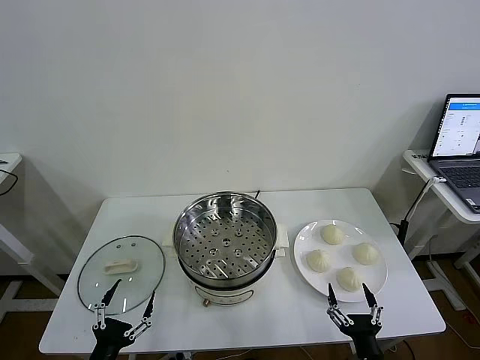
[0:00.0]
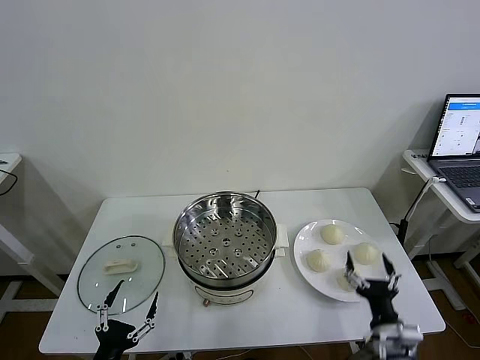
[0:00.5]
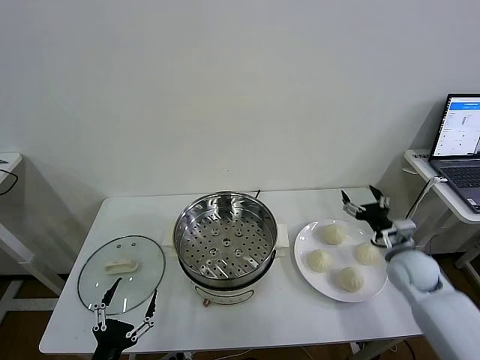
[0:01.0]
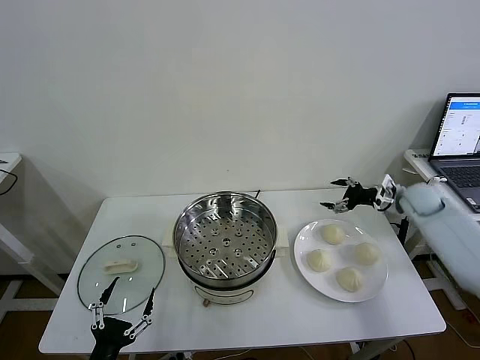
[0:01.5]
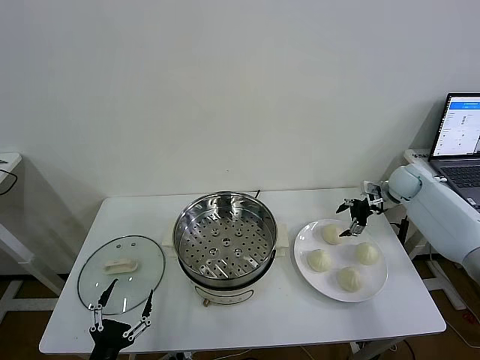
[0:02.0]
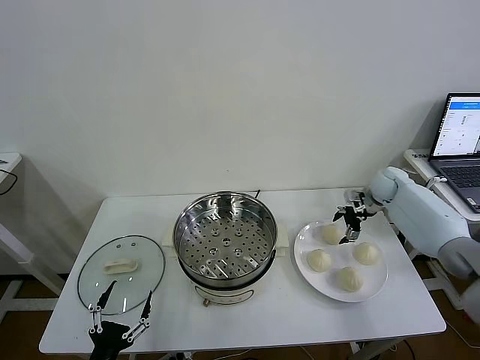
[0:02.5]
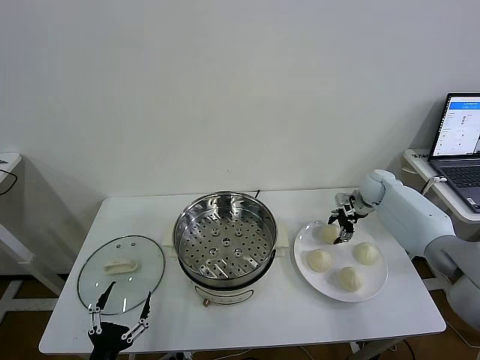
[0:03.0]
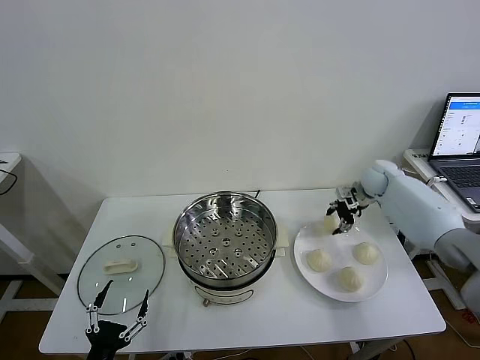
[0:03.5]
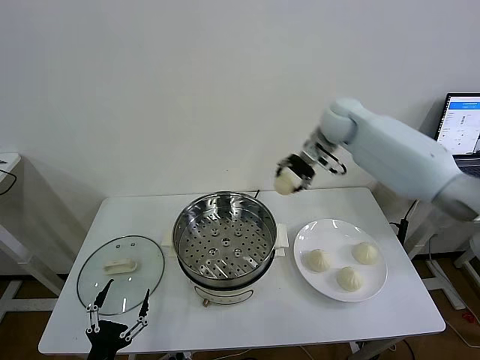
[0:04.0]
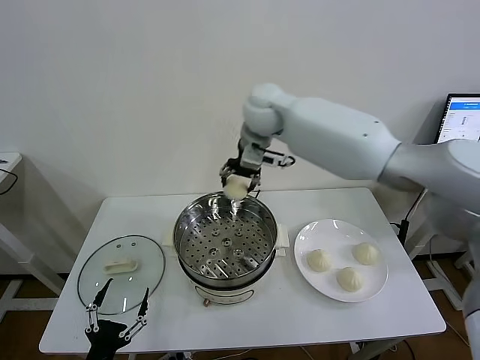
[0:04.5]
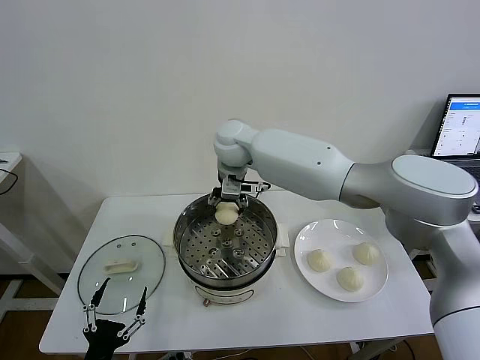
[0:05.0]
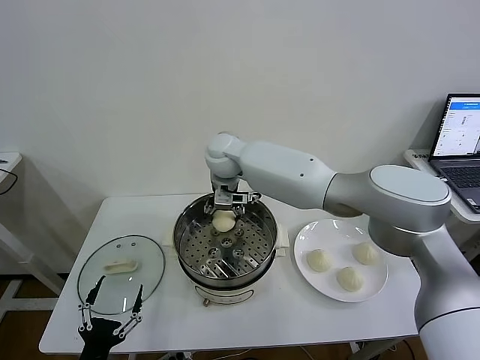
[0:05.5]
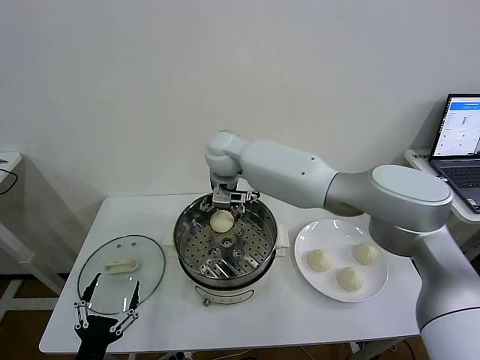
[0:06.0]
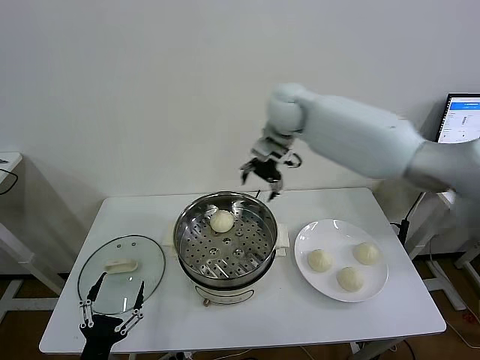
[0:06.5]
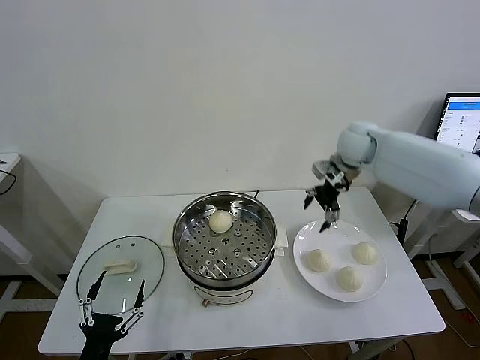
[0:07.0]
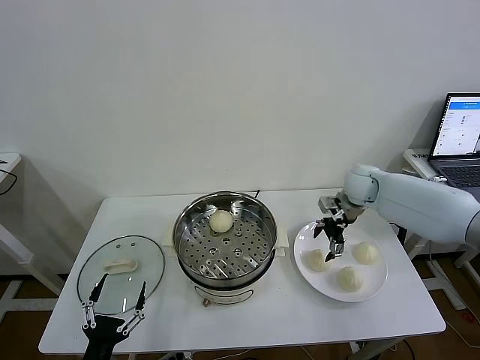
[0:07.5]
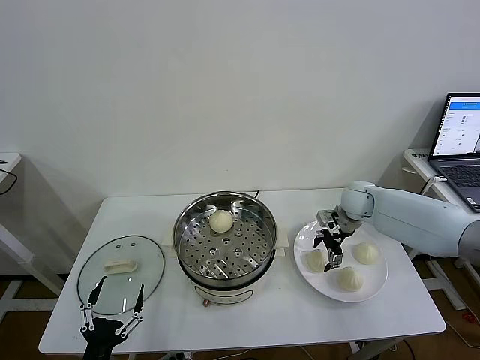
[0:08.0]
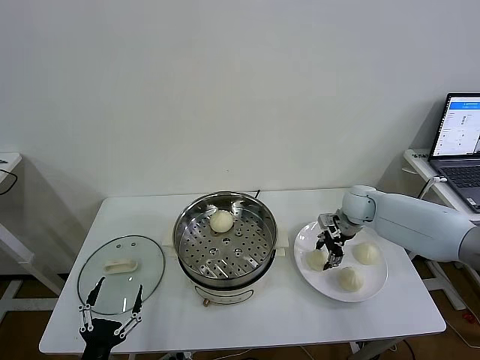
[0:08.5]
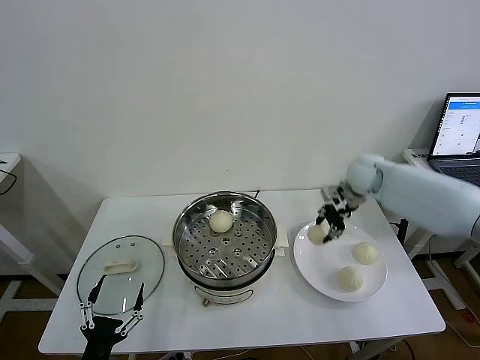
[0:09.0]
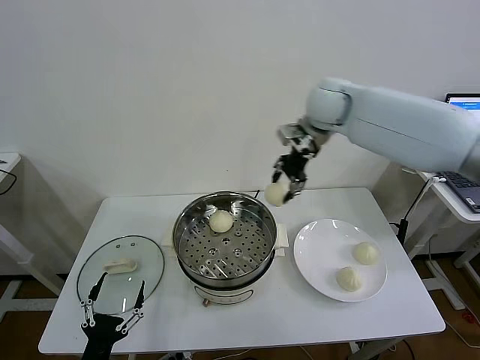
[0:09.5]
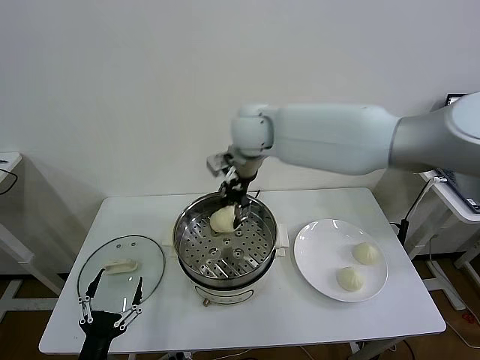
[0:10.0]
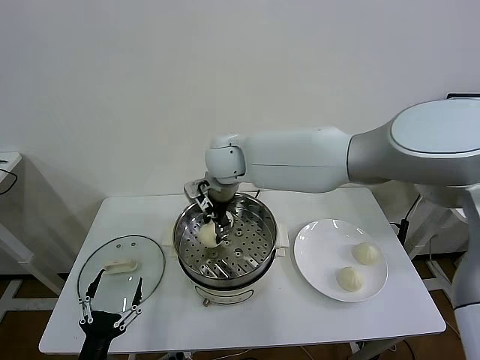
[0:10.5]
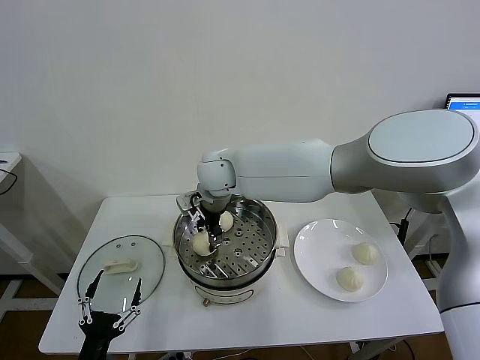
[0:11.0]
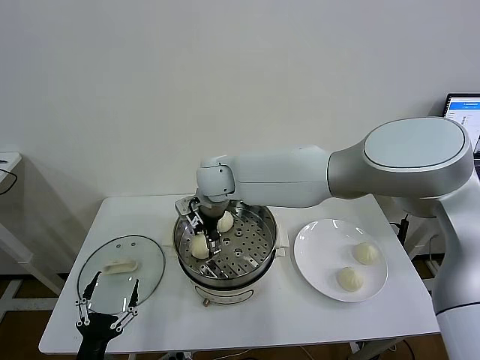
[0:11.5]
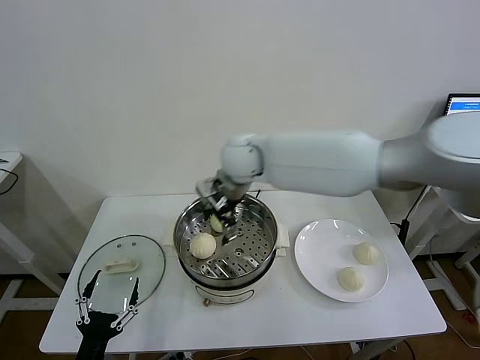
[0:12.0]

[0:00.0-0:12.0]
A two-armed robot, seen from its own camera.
Task of the whole recording: take steamed baozi put them in steamer then cover it.
Step, 0:00.0 to 0:03.0: Grasp the baozi in the plate with right gripper.
Step, 0:03.5 to 0:05.5: Place the baozi on the steamer with right gripper.
Step, 0:06.0 to 0:08.5: Grasp the baozi in the plate with right gripper.
Step, 0:09.0 to 0:11.5: Place the baozi on the steamer with right gripper.
0:02.0 to 0:04.0: The right gripper goes approximately 30 cm to the left and upward, and closes.
0:04.0 to 0:06.0: The right gripper shifts some 20 cm to the left, and opens up.
0:06.0 to 0:08.0: The right gripper shifts roughly 35 cm to the right and downward.
0:08.0 to 0:10.0: The right gripper moves to the left and upward, roughly 35 cm, and closes up.
0:10.0 to 0:12.0: The right gripper moves some 10 cm downward and comes back, and opens its fingers.

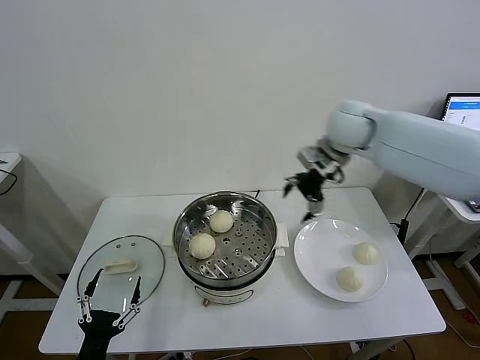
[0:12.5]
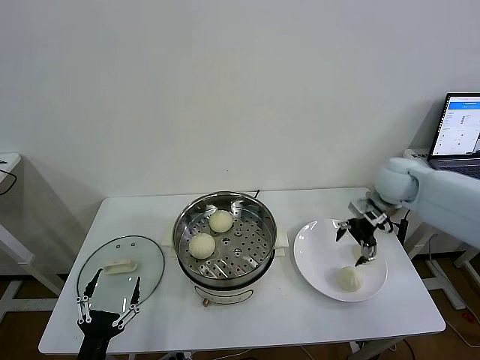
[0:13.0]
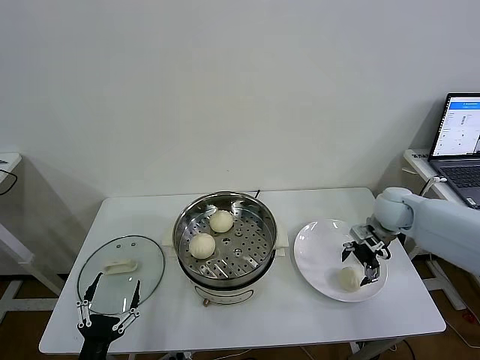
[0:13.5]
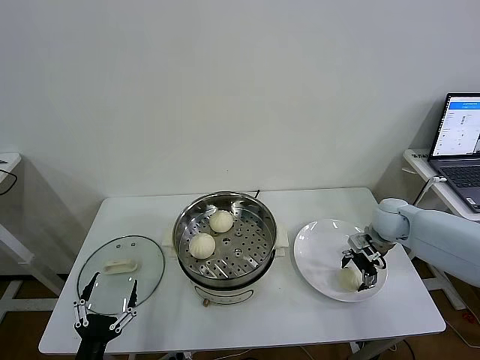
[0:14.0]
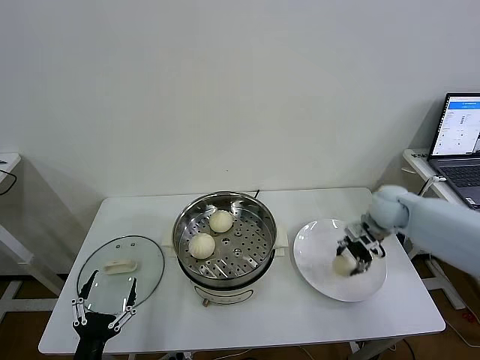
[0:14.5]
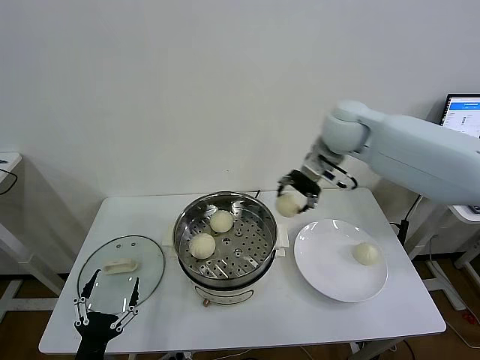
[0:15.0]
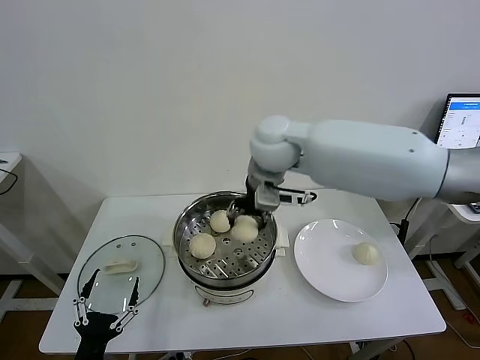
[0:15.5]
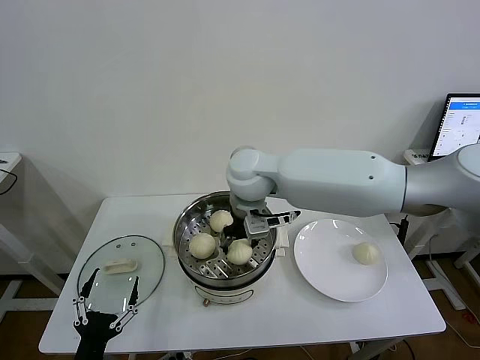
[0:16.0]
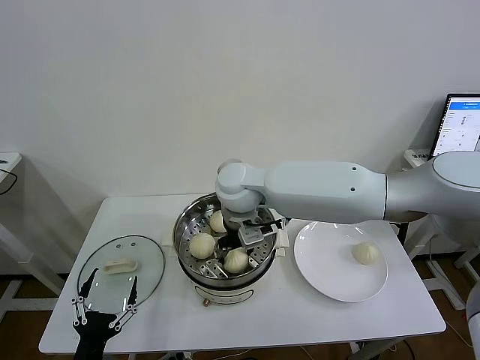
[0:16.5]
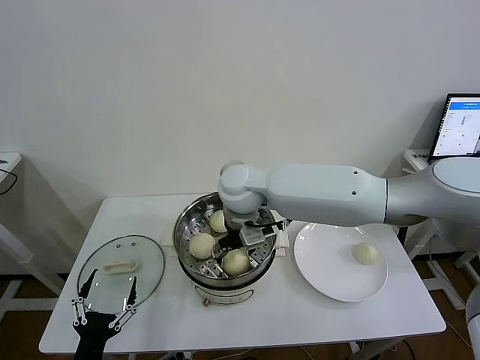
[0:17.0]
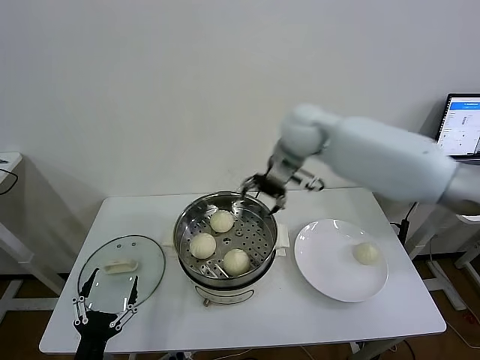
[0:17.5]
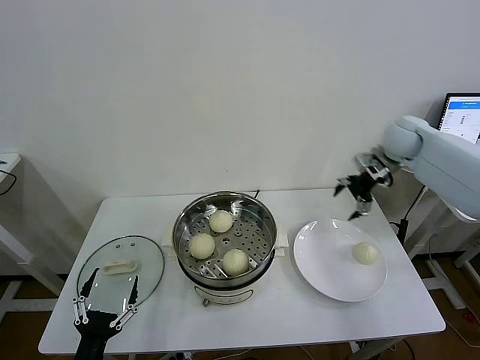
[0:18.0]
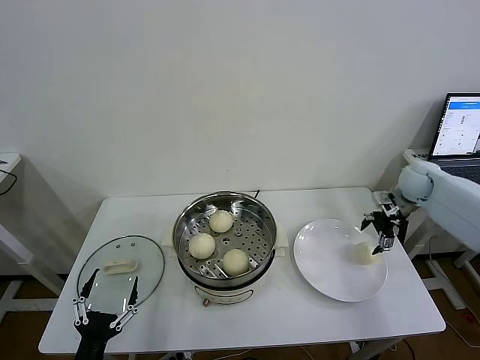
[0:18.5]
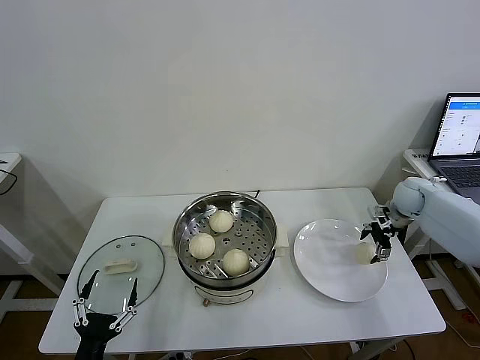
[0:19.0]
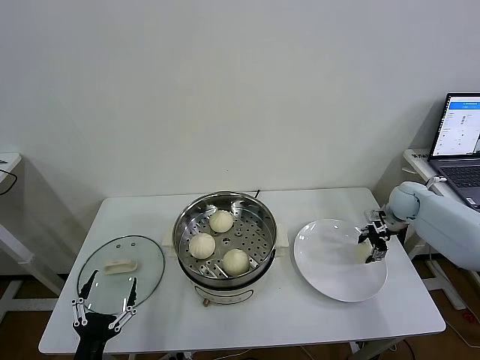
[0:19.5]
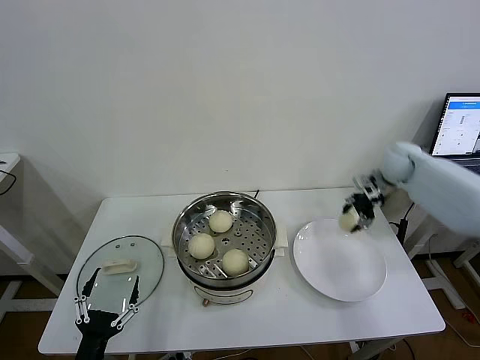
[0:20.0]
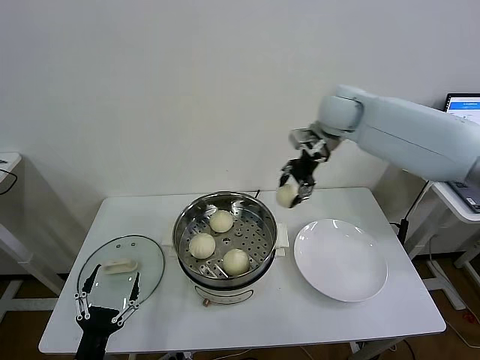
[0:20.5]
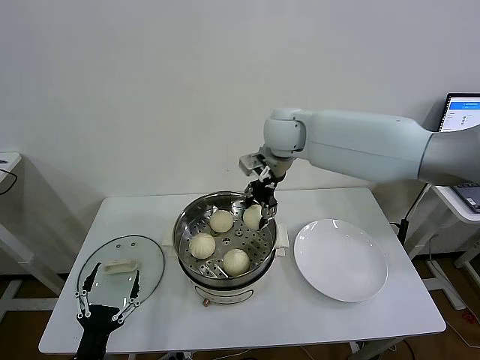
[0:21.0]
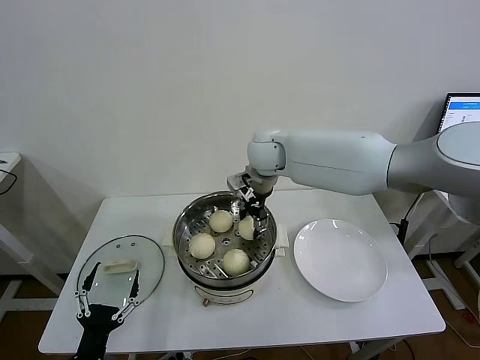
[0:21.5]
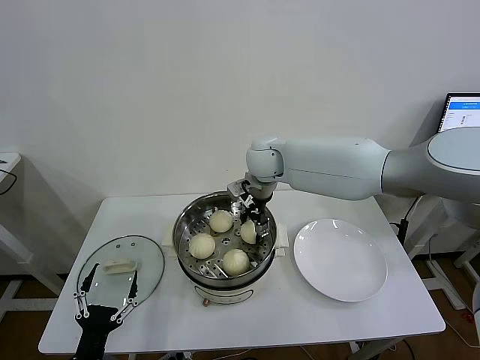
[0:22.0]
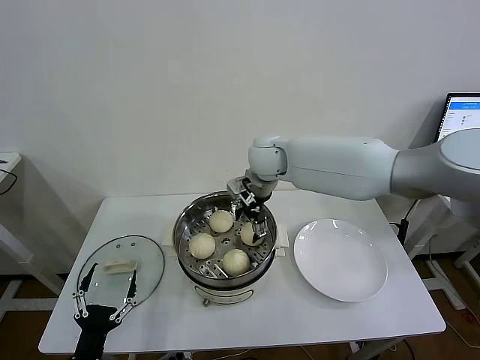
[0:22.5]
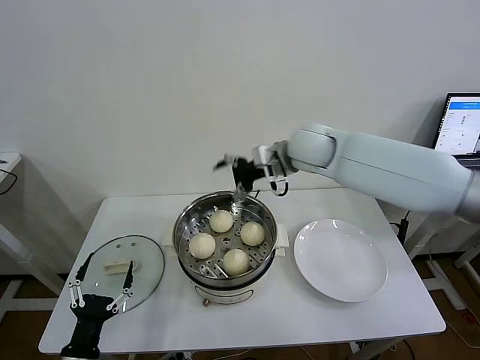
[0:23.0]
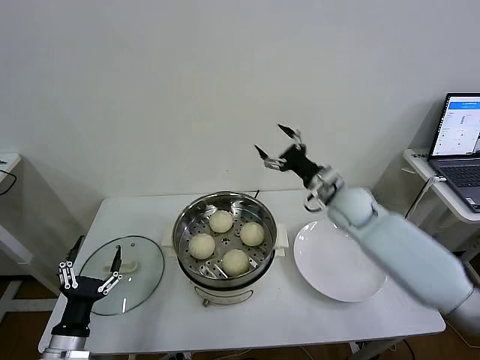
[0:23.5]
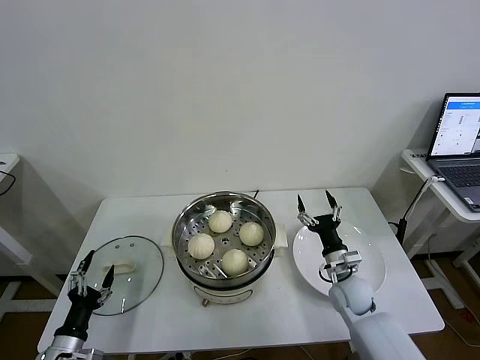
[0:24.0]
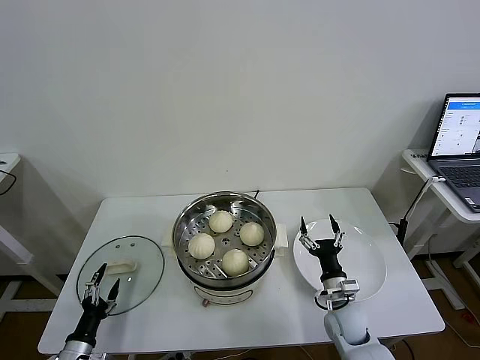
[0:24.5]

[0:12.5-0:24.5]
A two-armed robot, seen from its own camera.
Task of the whole recording: take steamed baozi put them in steamer then cover it.
Step, 0:12.5 to 0:14.0: Grasp the baozi in the plate with right gripper.
Step, 0:14.5 to 0:17.0: Place the baozi on the steamer with right gripper.
Step, 0:17.5 to 0:19.5: Grasp the baozi in the plate with right gripper.
Step, 0:20.0 to 0:22.0: Place the baozi on the steamer with right gripper.
0:12.5 to 0:14.5: The right gripper goes about 20 cm downward and to the right, and closes.
0:14.5 to 0:16.5: The right gripper heads to the left, covering about 35 cm.
0:16.5 to 0:18.5: The right gripper moves to the right, approximately 50 cm, and opens.
0:18.5 to 0:20.5: The right gripper shifts some 30 cm to the left and upward, and closes.
0:20.5 to 0:22.5: The right gripper travels to the left and downward by roughly 15 cm, and opens.
0:22.5 to 0:24.5: The right gripper moves downward, backward and to the right, about 50 cm. Meanwhile the left gripper is displaced to the left, downward and forward by roughly 15 cm.

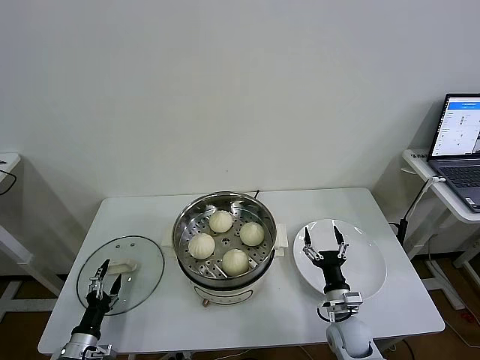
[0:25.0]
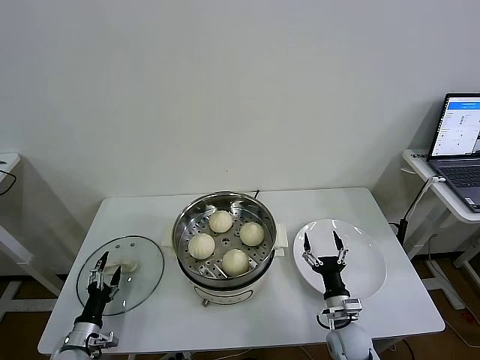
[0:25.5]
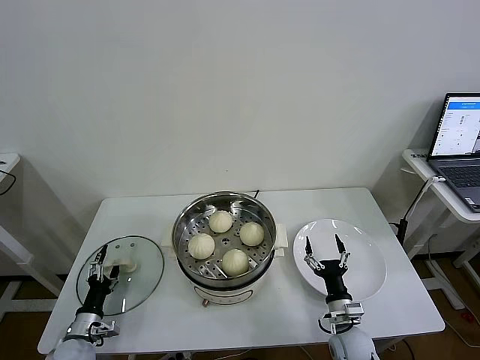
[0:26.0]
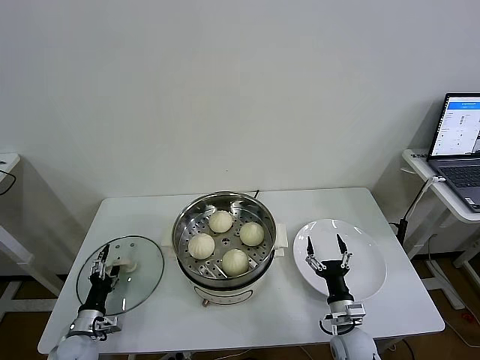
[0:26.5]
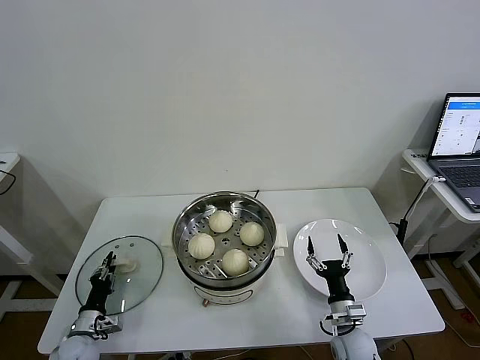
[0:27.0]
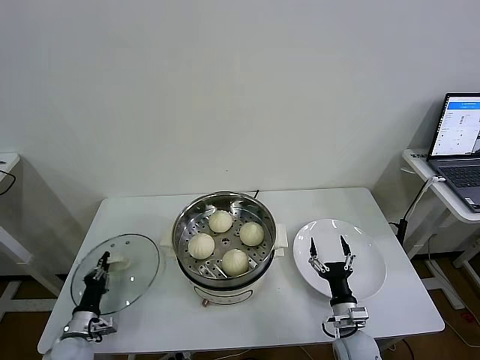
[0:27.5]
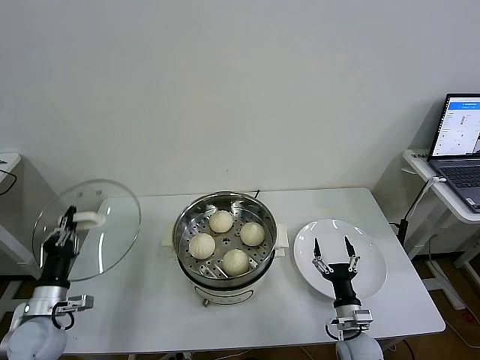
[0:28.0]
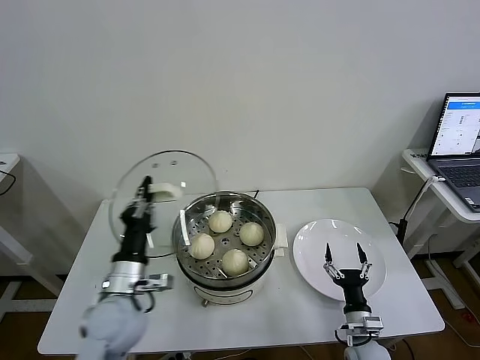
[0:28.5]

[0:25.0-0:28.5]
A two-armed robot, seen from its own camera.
Task of the whole recording: take steamed baozi put them in steamer then cover it.
Step, 0:25.0 to 0:27.0: Grasp the pot lid with left gripper.
0:25.0 to 0:27.0: The left gripper heads forward, covering roughly 5 cm, and closes up.
0:27.0 to 0:28.5: The left gripper heads upward and to the right, covering about 30 cm.
